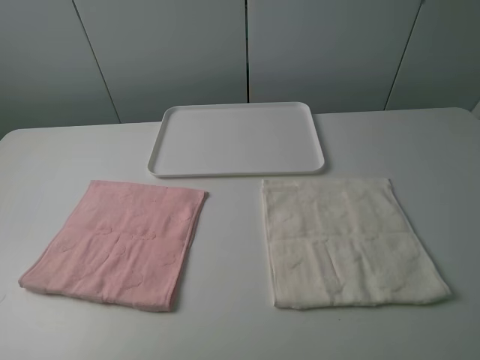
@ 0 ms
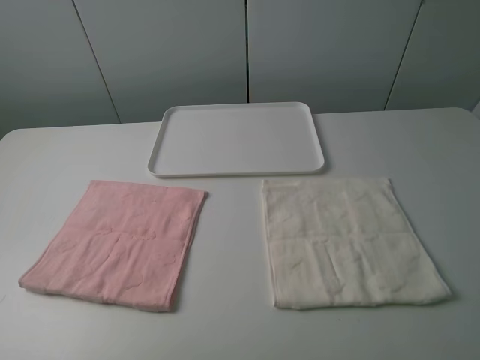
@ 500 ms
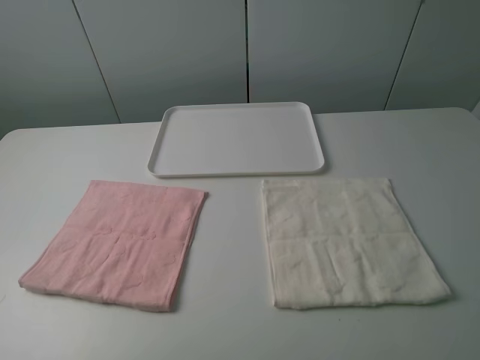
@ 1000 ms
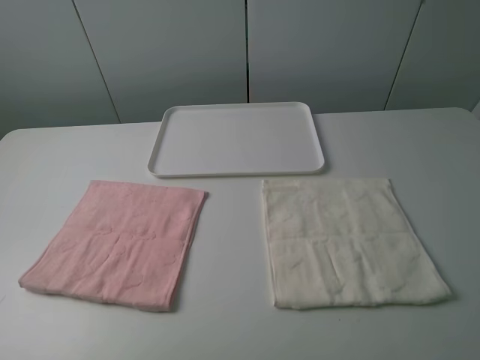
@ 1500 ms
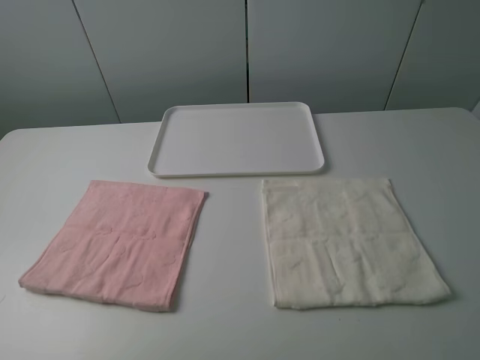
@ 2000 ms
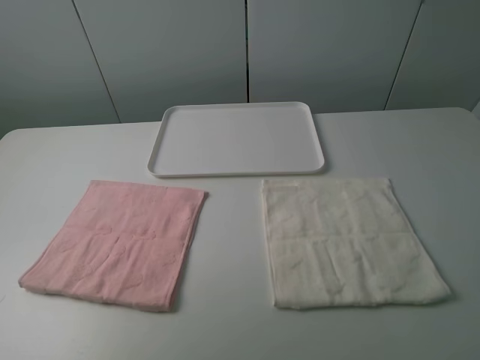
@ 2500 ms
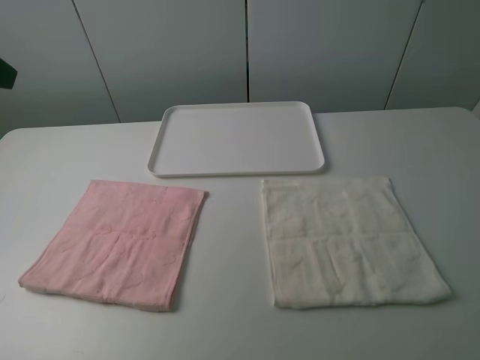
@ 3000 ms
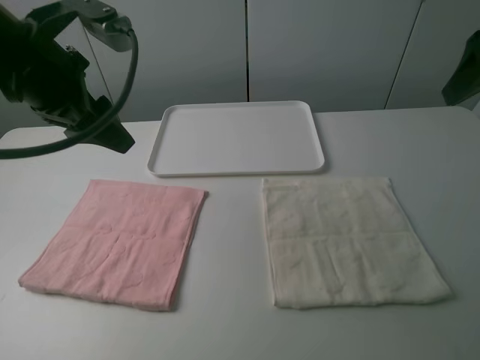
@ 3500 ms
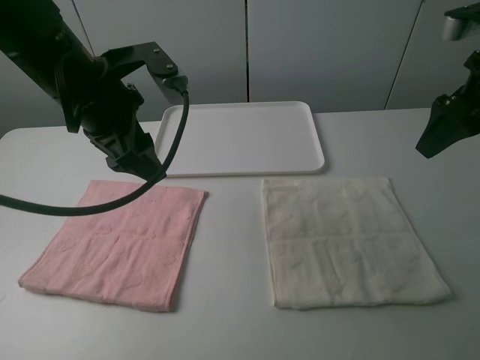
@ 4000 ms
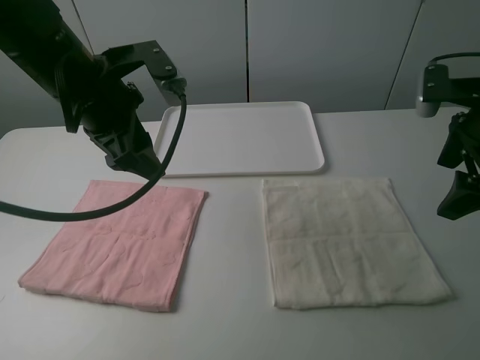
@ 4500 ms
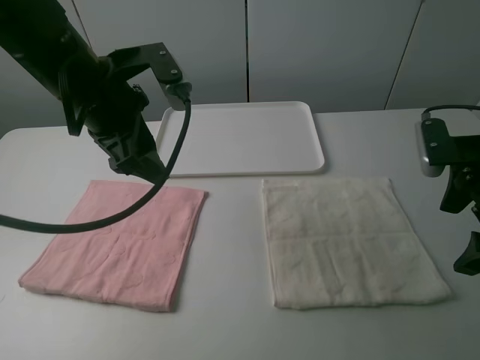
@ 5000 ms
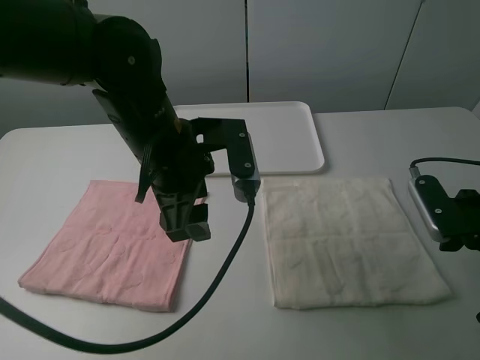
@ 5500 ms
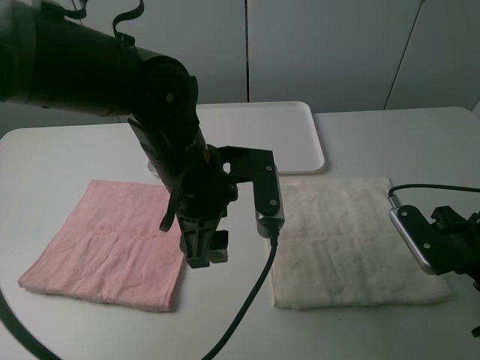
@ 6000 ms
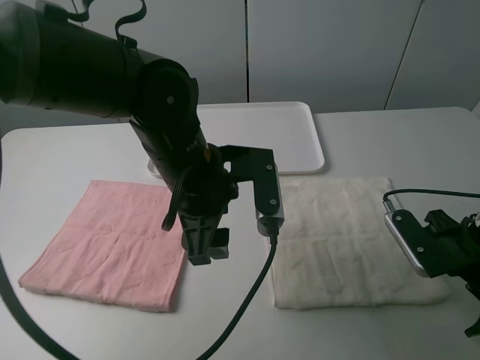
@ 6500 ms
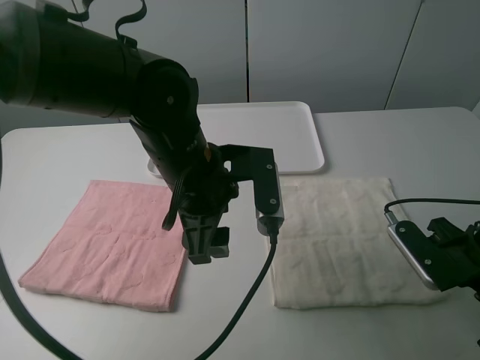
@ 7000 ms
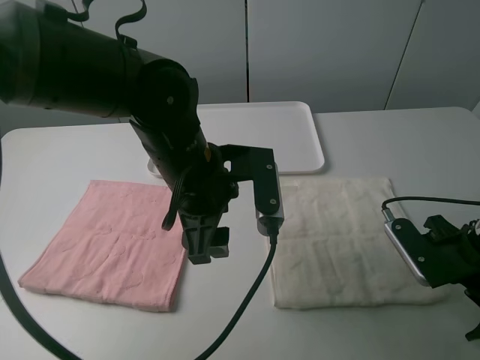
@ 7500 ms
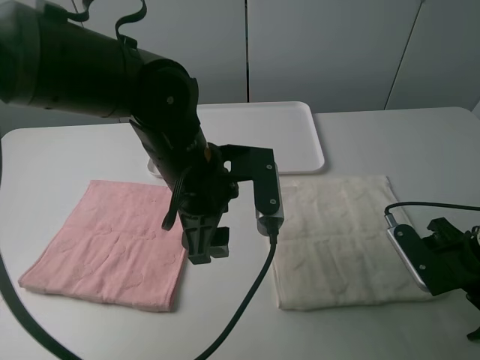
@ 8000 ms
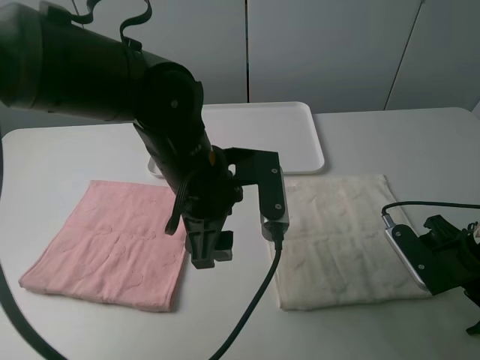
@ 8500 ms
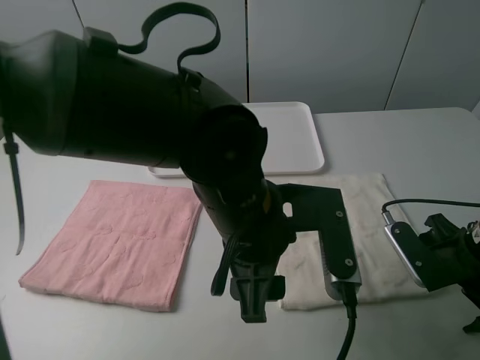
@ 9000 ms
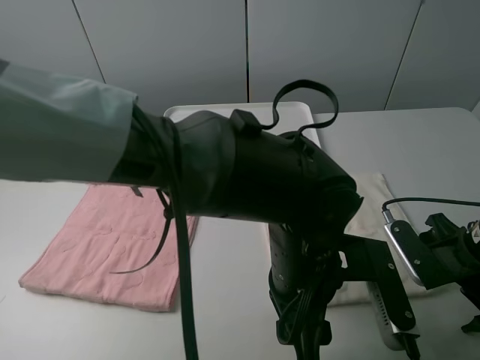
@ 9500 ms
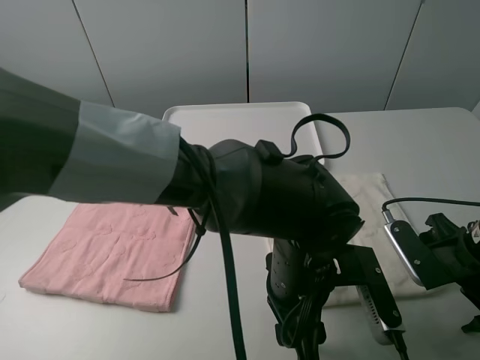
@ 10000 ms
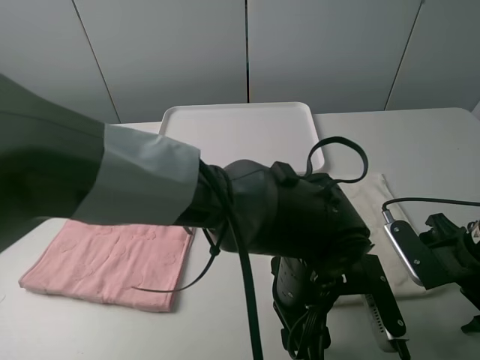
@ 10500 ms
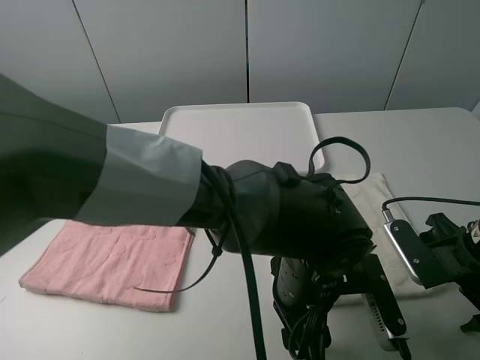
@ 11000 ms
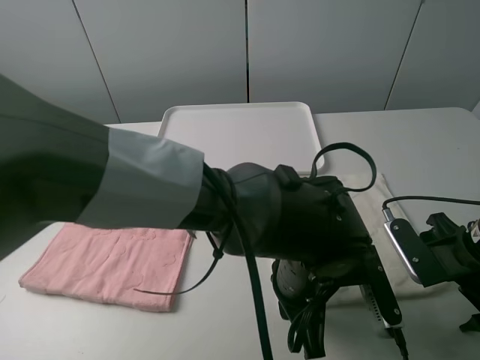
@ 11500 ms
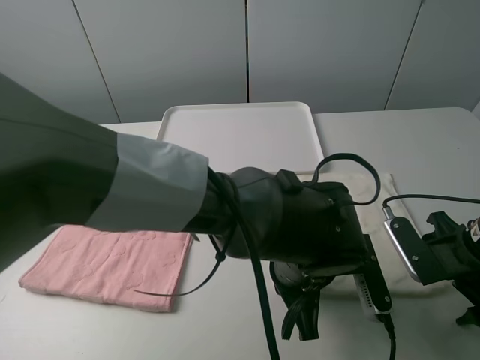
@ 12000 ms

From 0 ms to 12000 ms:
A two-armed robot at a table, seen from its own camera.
Task of the whole recording: fold one of the towels by two grippers and place it on the tray,then fold another towel by two grippers and place it on the folded towel.
From 0 ms to 2000 ms: Both grippers stay put.
From 2000 ms to 4000 ms: The right gripper shifts roughly 30 cm forward. Meanwhile the left gripper travels forward and to the right by approximately 35 cm.
From 4000 ms to 6000 ms: The right gripper is displaced downward and backward by about 20 cm. The left gripper is displaced to the right and downward by about 15 cm.
From 6000 ms to 8000 ms: The grippers move only a little.
From 8000 ms to 10000 ms: The left gripper travels to the right, backward and downward by about 15 cm.
From 10000 ms to 12000 ms: The left gripper closes its fingers.

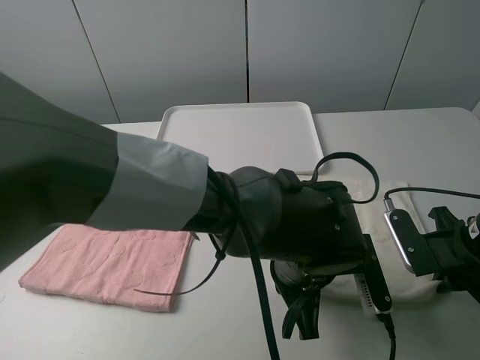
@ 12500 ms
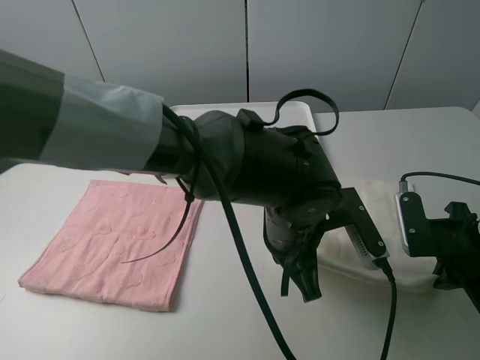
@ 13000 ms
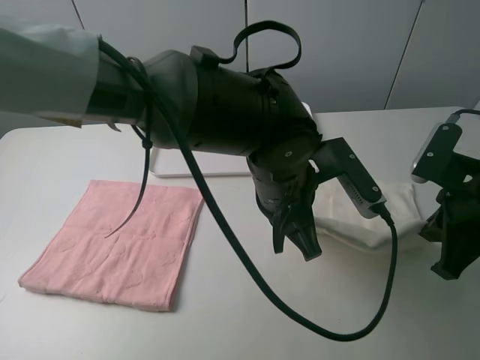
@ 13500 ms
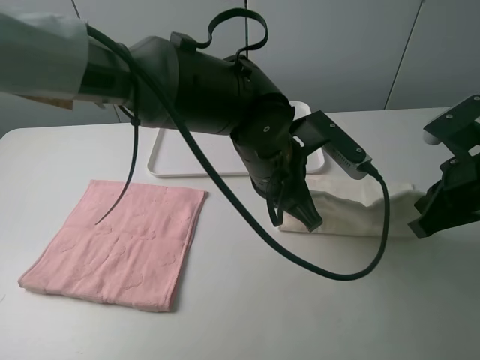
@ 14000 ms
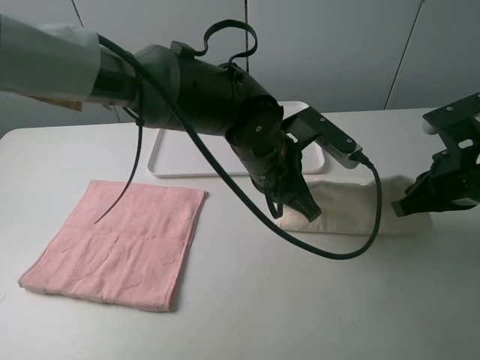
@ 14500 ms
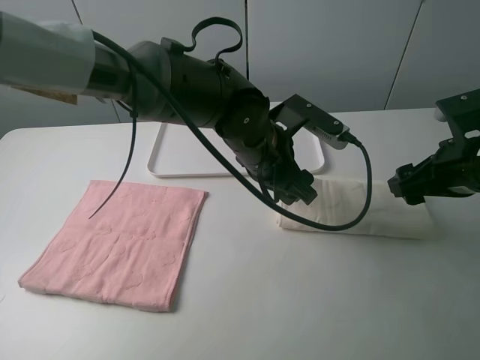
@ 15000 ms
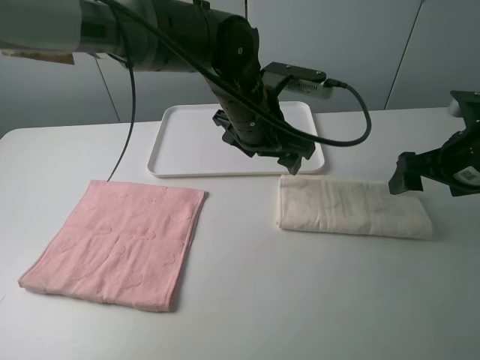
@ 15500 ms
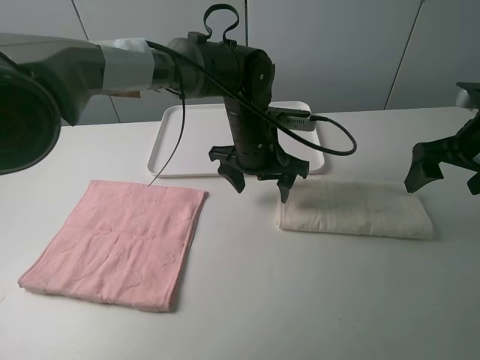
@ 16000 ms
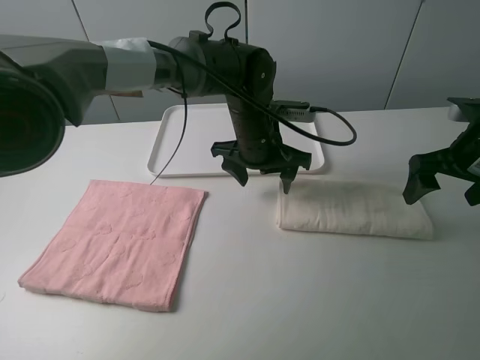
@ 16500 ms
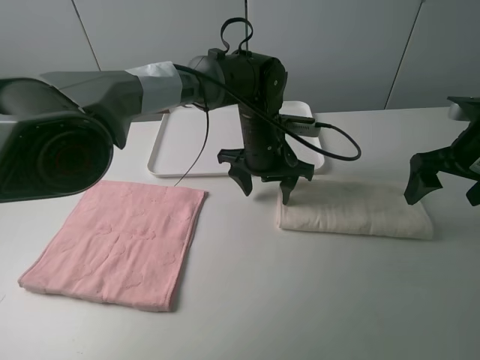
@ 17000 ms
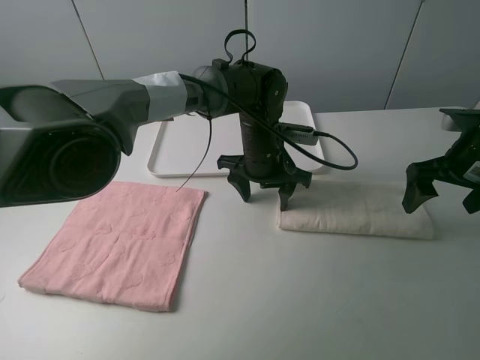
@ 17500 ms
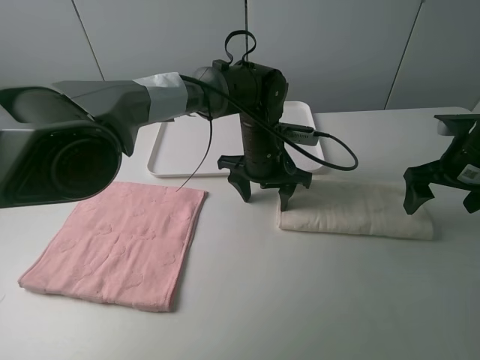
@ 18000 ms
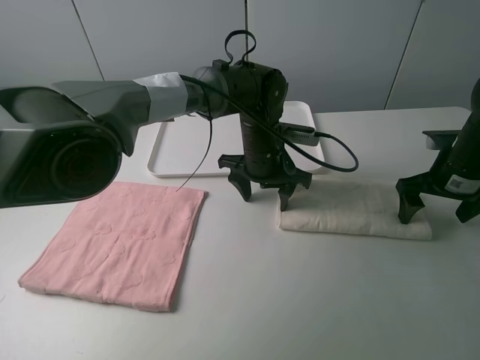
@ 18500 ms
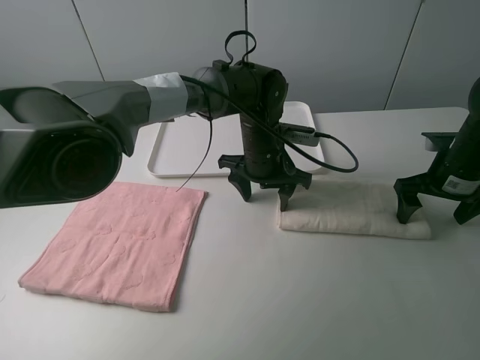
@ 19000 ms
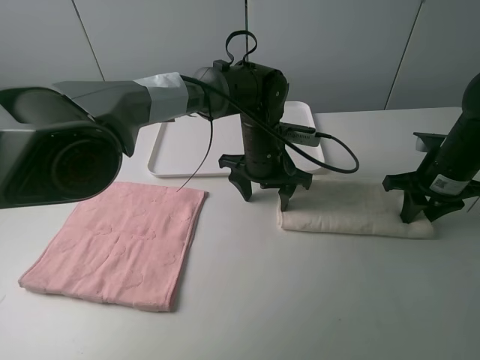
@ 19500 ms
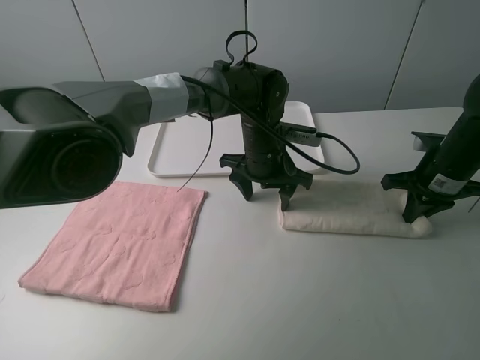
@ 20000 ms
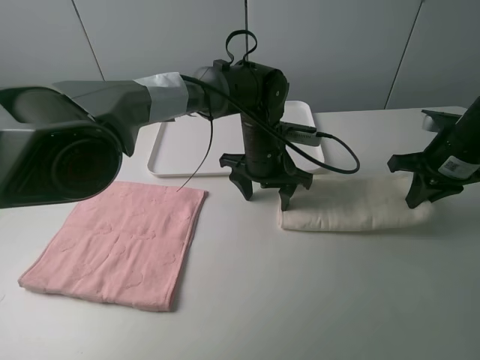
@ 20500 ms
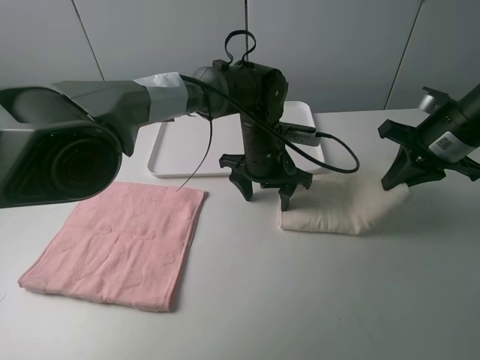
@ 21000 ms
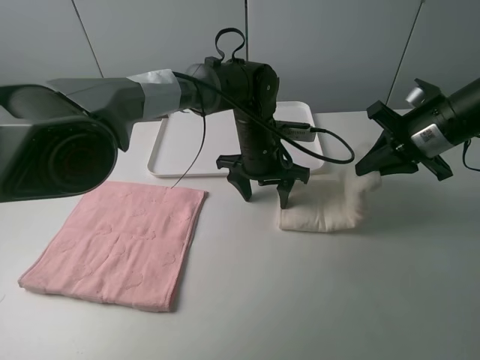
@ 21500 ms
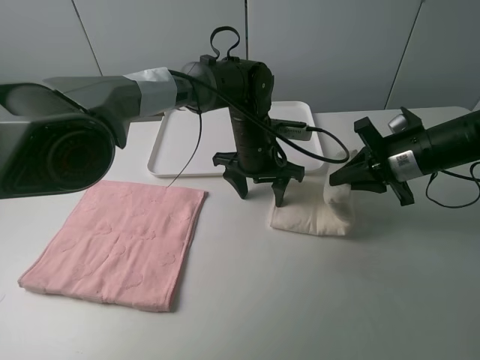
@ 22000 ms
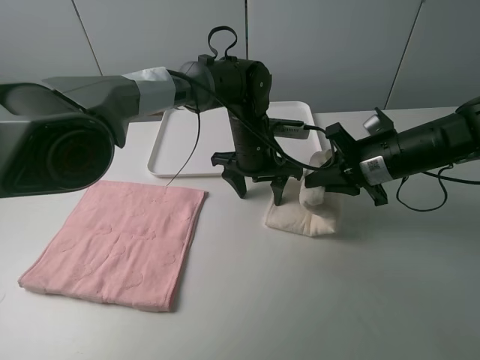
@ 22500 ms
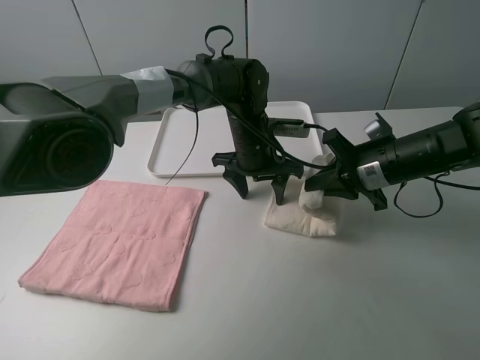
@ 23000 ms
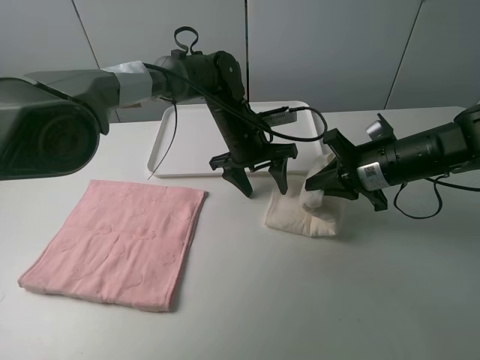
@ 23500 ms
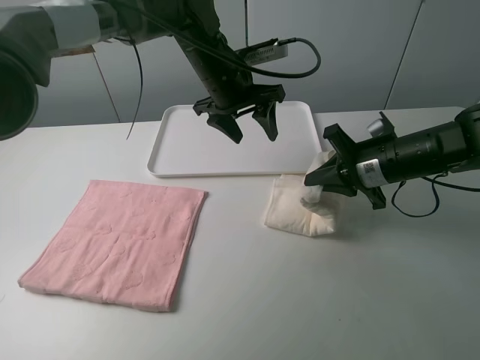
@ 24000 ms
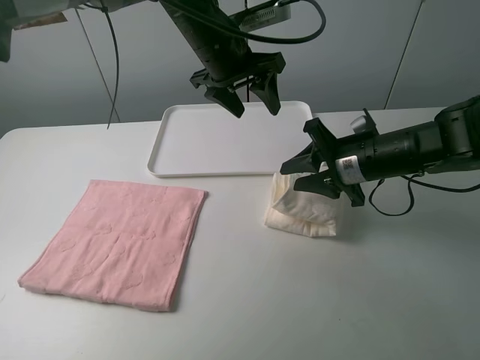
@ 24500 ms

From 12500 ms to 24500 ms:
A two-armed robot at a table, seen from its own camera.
Task of the whole recording: fold one of the towels by two grippers and place it on the tray,then fold another towel by two grippers and place it on the folded towel.
Step, from 13000 ms to 15000 ms: Grasp the white towel with the right gripper.
Step, from 15500 ms to 17500 ms: Press the white towel with the left gripper.
Step, from 18000 ms to 20000 ms: Grasp the white towel with the right gripper.
From 12500 ms to 14500 ms: The left gripper heads forward and upward, covering about 15 cm. Meanwhile the right gripper shifts roughly 5 cm upward.
From 14500 ms to 16500 ms: Both grippers move forward, some 5 cm. The left gripper opens up; the right gripper opens its fingers.
From 16500 ms to 18500 ms: The right gripper goes roughly 5 cm downward.
From 18500 ms to 20500 ms: The right gripper closes.
From 20500 ms to 22500 ms: The right gripper is displaced to the left by approximately 10 cm.
From 22500 ms to 24500 ms: The right gripper opens its fingers. Meanwhile the left gripper is displaced upward by about 15 cm.

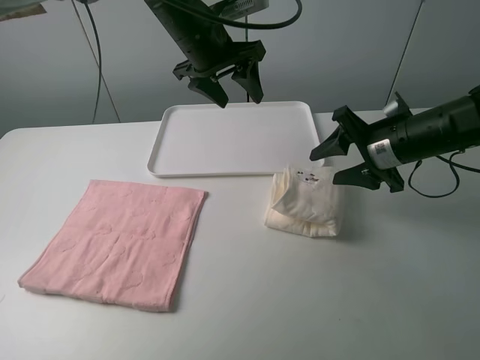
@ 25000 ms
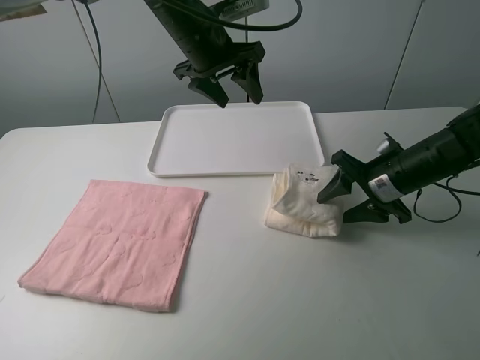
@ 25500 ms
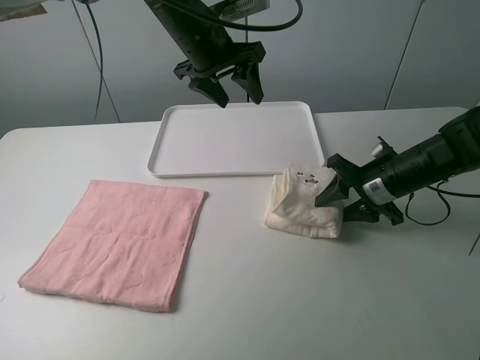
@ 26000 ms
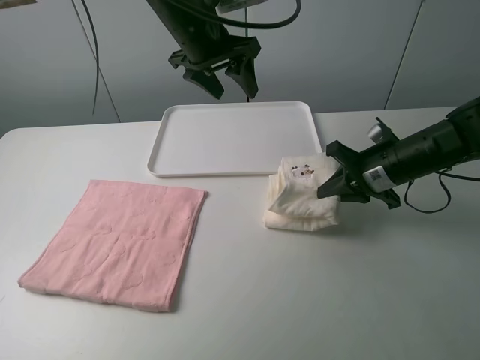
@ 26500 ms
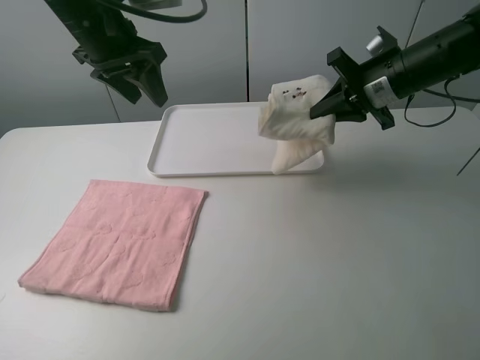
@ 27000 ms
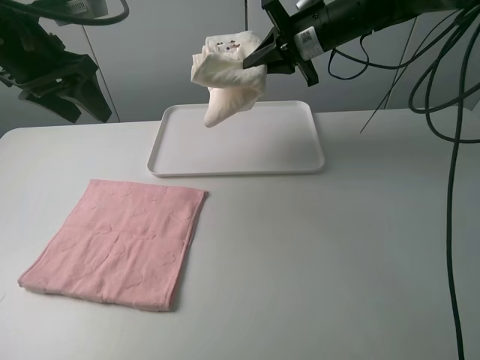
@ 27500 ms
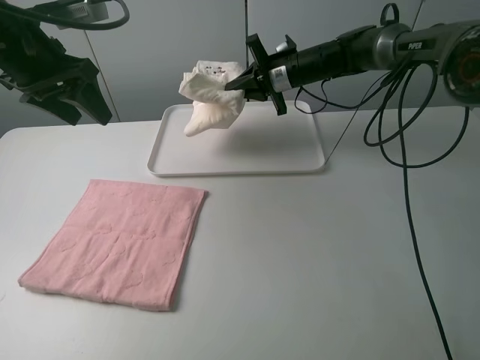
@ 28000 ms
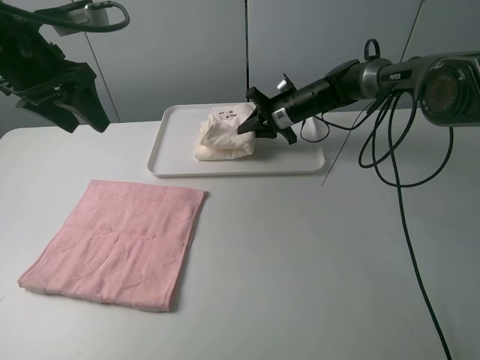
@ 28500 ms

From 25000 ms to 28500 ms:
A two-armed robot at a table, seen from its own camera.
Task of the whole recording: fold one of the towels by two grippers and place it on the tray,then fold another towel by two grippers and place it on the folded towel.
Step, from 25000 ms to 26000 ms: Grasp the white towel with the right gripper.
From 25000 ms to 27000 ms: The left gripper goes some 15 cm to the left. The right gripper moves forward and upward, approximately 10 cm, and closes its fingers.
From 27000 ms to 28500 ms: The left gripper moves to the left, about 5 cm, while the right gripper moves downward, forward and to the left, some 20 cm.
